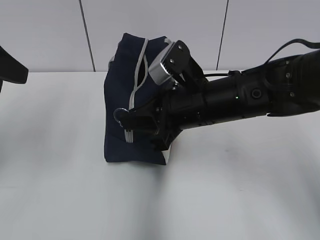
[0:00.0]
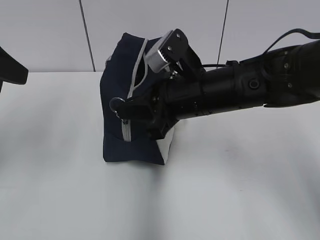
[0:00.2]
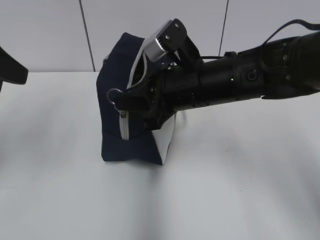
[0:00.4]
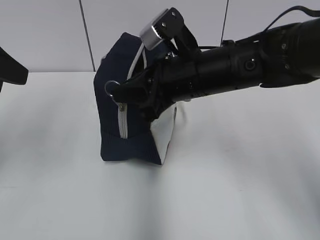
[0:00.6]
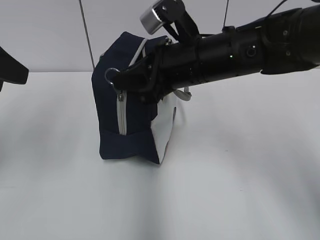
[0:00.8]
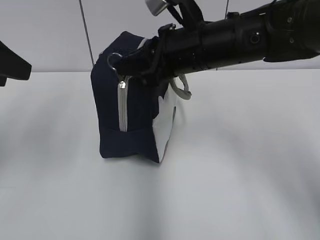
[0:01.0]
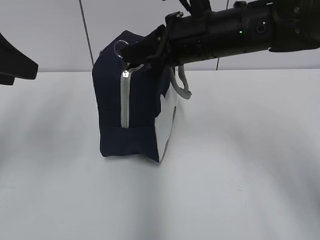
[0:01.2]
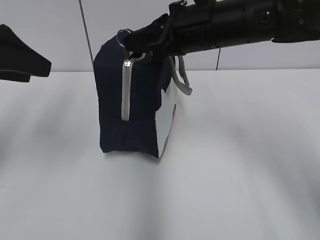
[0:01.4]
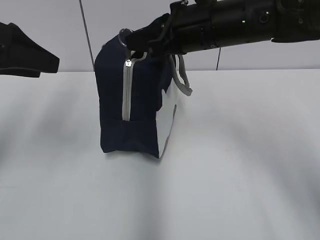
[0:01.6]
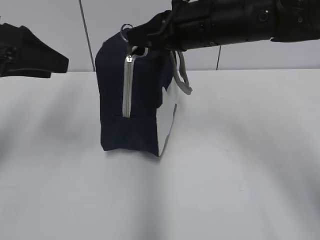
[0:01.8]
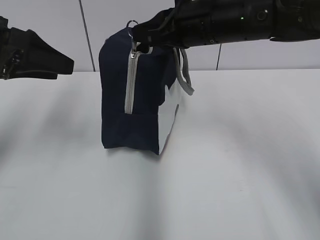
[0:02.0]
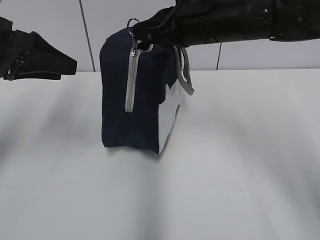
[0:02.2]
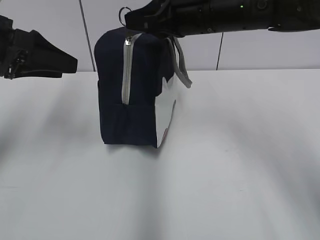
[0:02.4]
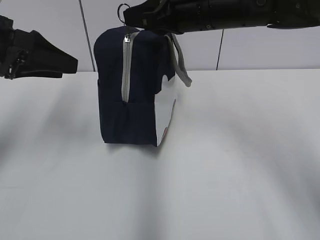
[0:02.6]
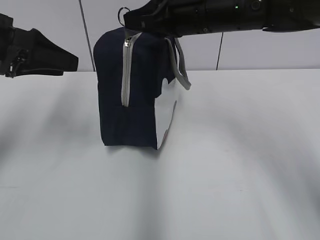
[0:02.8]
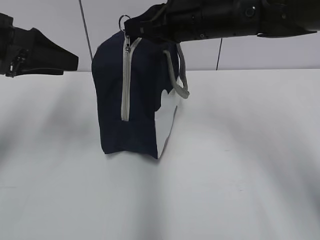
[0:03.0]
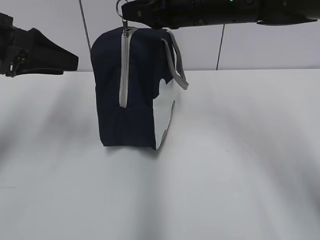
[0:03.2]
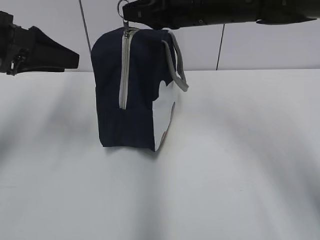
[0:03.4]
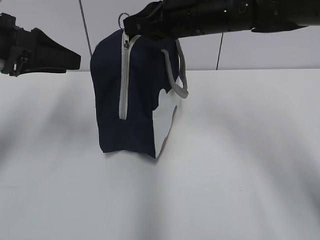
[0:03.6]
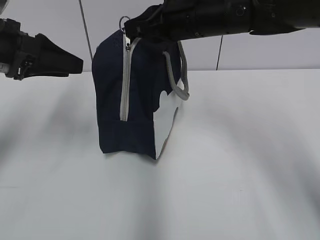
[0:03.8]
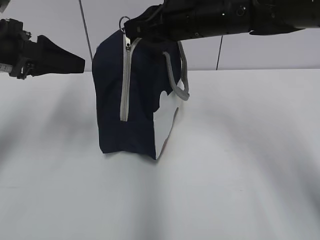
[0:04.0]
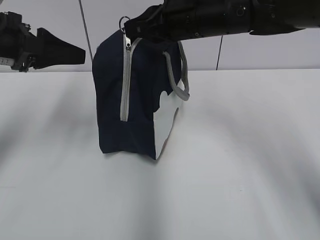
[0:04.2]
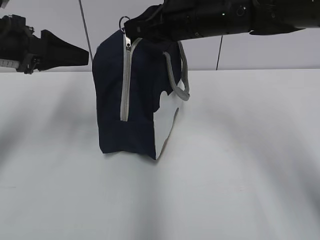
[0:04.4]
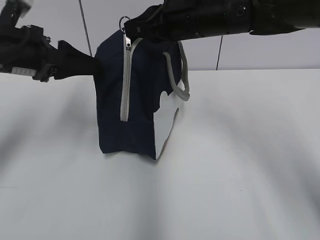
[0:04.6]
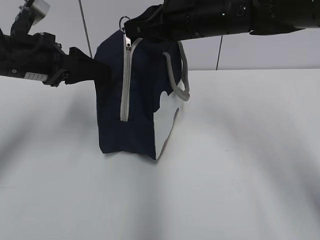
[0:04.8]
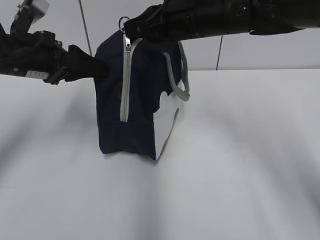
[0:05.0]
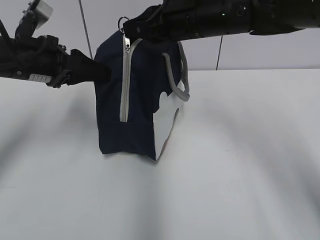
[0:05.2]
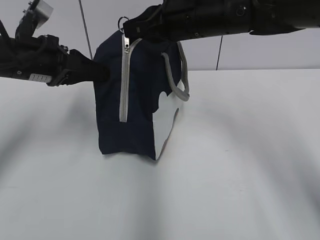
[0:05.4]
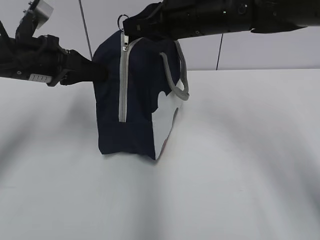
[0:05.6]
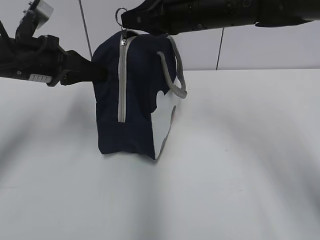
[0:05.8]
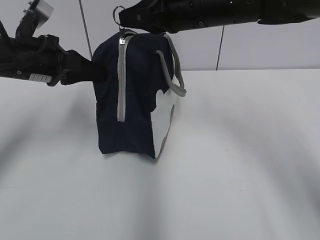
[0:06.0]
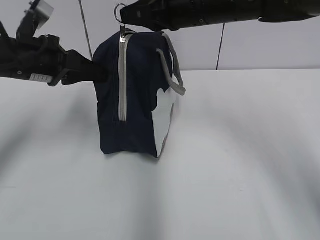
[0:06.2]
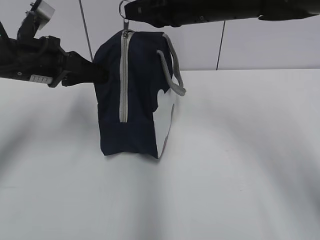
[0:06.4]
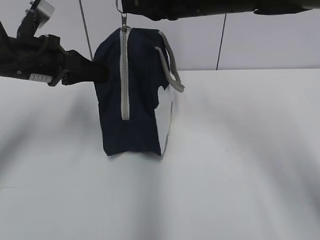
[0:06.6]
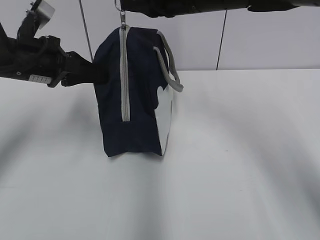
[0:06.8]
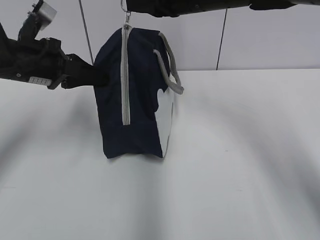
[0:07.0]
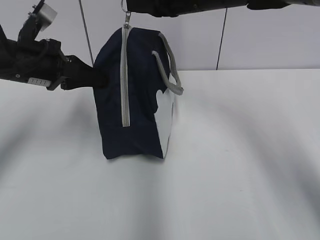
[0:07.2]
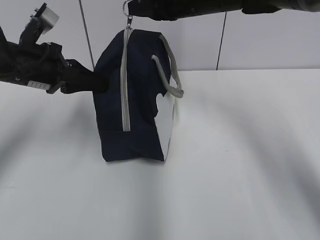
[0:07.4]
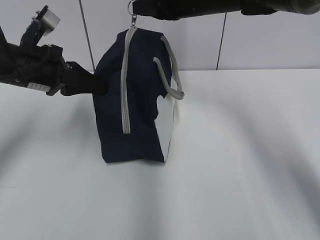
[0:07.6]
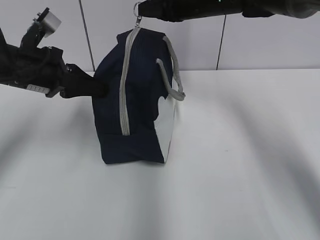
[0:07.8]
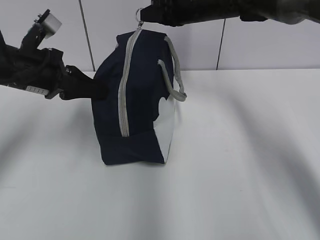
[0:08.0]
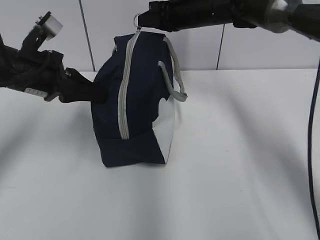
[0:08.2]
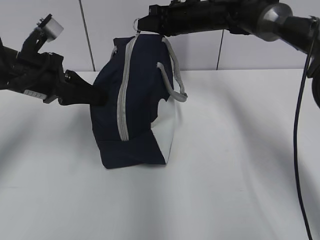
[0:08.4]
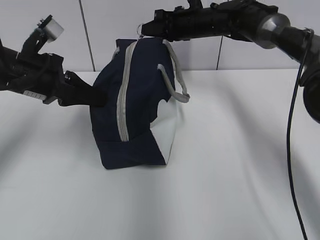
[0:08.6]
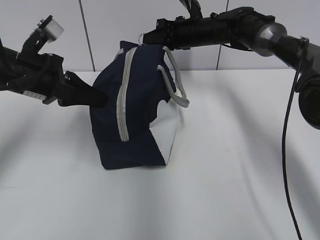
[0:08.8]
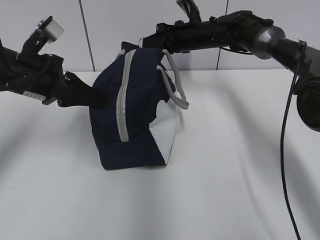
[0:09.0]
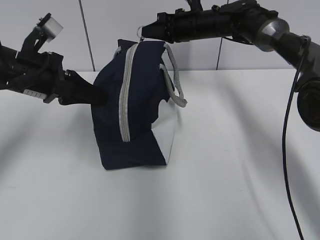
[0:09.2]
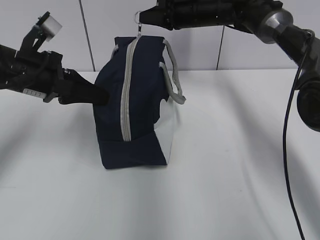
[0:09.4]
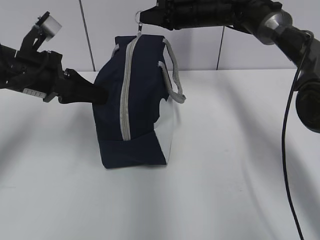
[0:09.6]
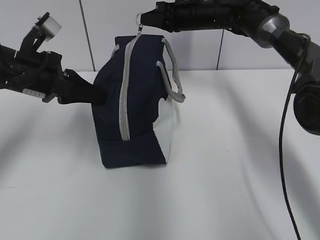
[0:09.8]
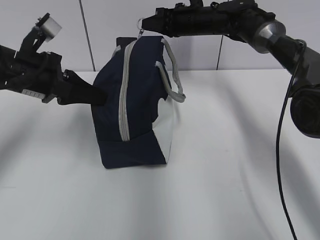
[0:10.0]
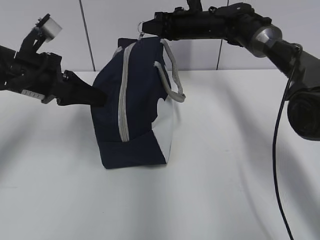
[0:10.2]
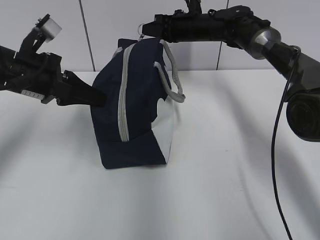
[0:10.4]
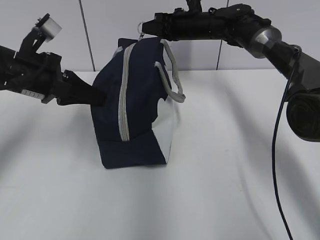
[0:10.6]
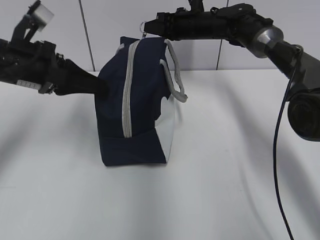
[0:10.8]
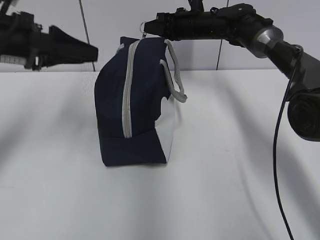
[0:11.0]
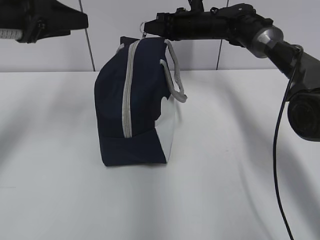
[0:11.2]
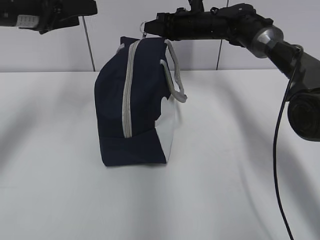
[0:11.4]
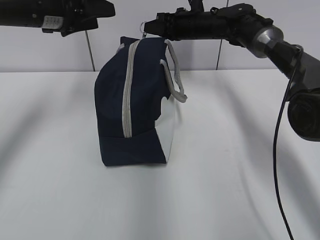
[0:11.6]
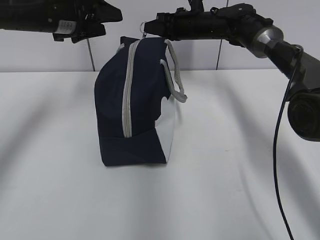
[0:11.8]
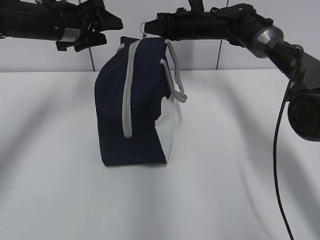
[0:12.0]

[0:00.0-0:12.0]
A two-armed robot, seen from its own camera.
0:00.0 to 0:01.6: The right gripper heads upward and forward, covering some 10 cm.
0:01.6 to 0:03.0: The grippers move only a little.
0:03.0 to 0:04.4: The grippers move only a little.
0:04.4 to 0:06.0: The left gripper closes its fingers.
0:06.0 to 0:07.6: The right gripper goes approximately 10 cm forward.
0:07.6 to 0:09.0: The right gripper heads downward and forward, covering about 15 cm.
0:09.0 to 0:10.4: There are only small adjustments of the grippers.
0:10.4 to 0:12.0: The left gripper travels forward by roughly 10 cm, and opens its fingers.

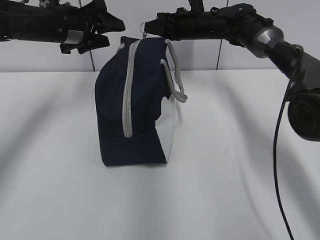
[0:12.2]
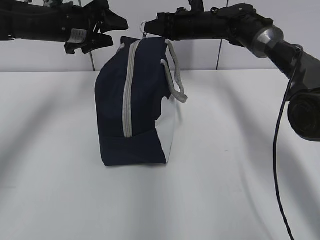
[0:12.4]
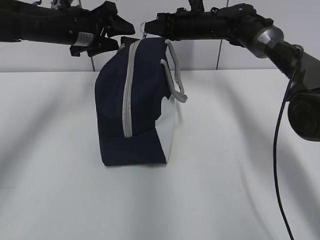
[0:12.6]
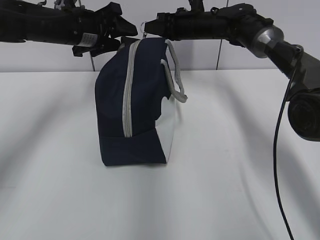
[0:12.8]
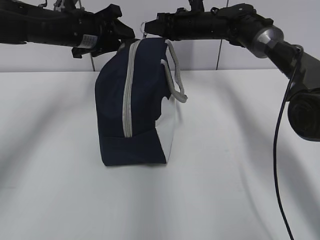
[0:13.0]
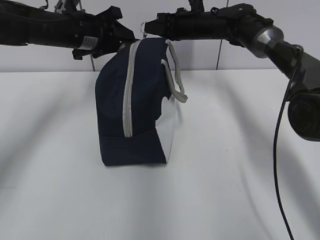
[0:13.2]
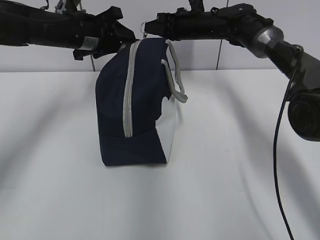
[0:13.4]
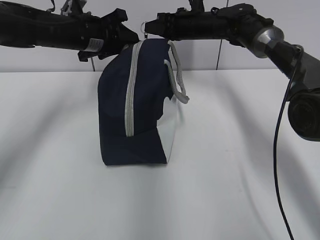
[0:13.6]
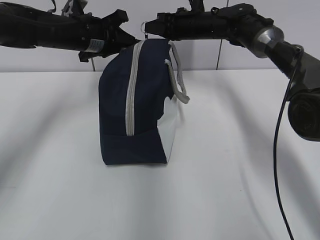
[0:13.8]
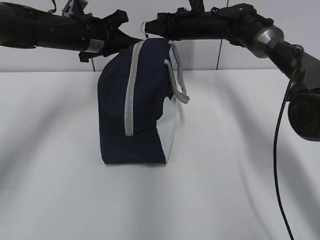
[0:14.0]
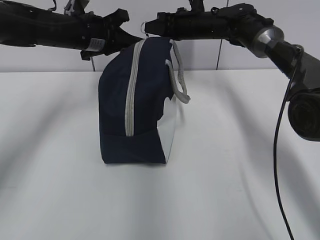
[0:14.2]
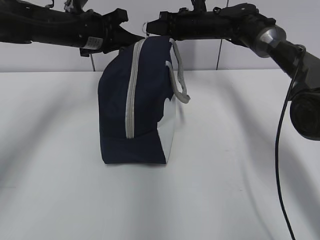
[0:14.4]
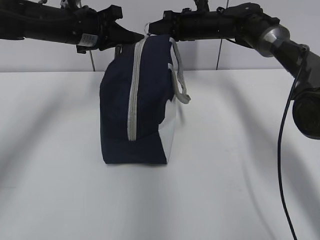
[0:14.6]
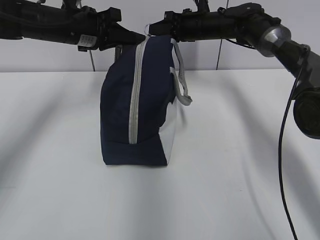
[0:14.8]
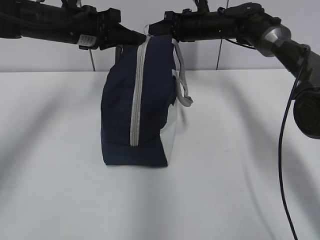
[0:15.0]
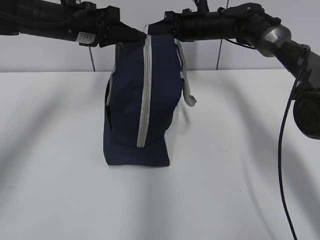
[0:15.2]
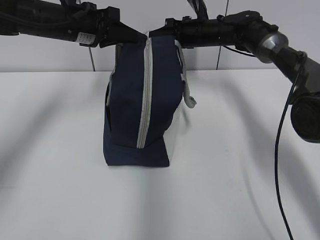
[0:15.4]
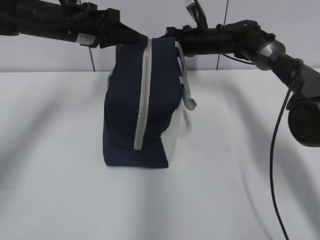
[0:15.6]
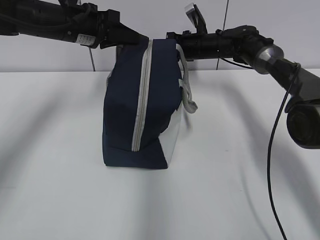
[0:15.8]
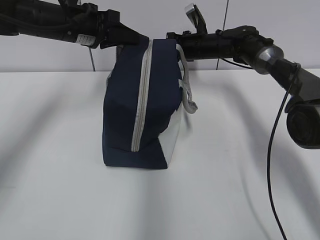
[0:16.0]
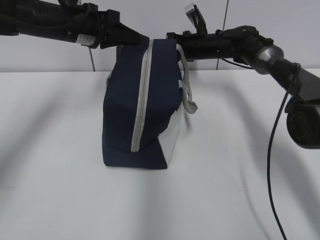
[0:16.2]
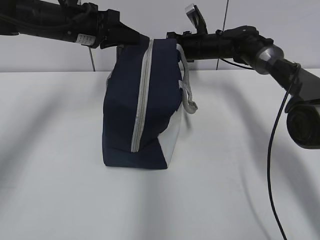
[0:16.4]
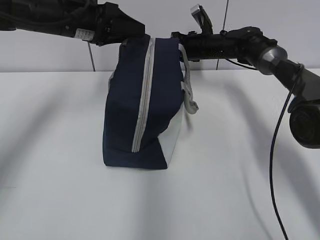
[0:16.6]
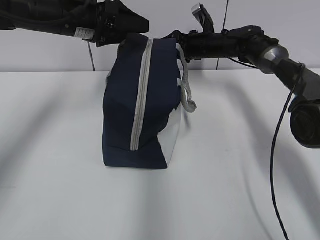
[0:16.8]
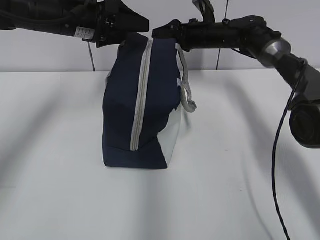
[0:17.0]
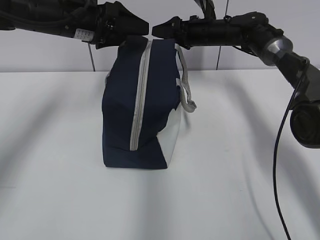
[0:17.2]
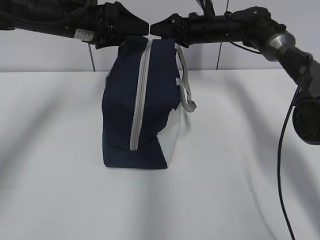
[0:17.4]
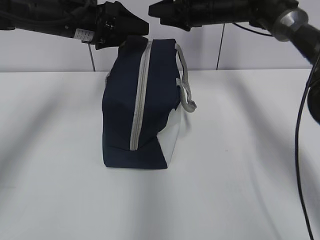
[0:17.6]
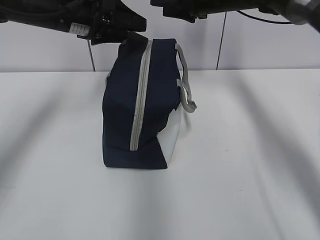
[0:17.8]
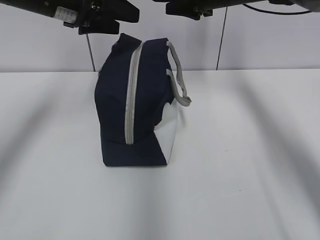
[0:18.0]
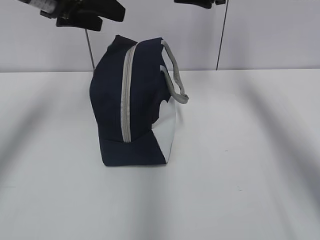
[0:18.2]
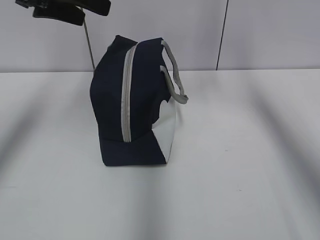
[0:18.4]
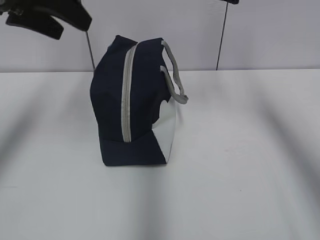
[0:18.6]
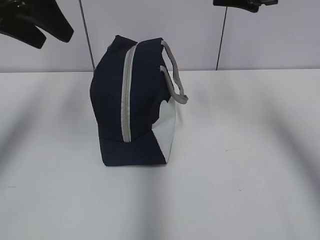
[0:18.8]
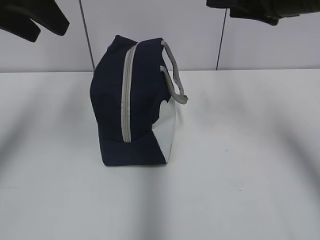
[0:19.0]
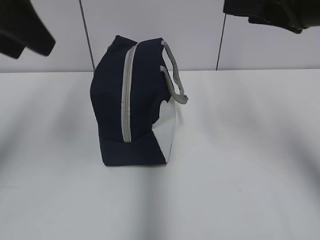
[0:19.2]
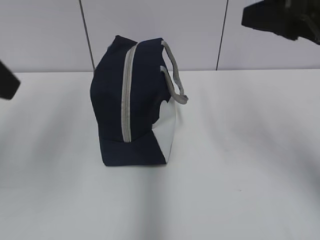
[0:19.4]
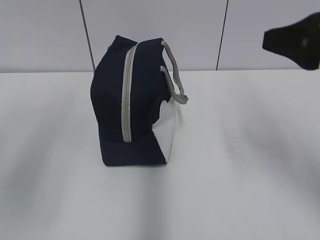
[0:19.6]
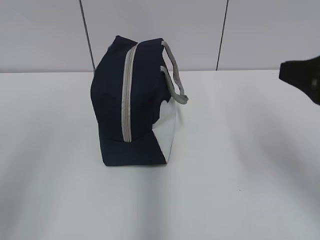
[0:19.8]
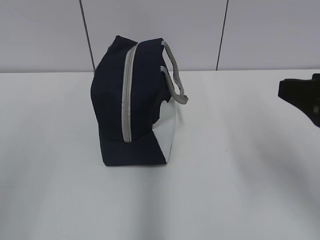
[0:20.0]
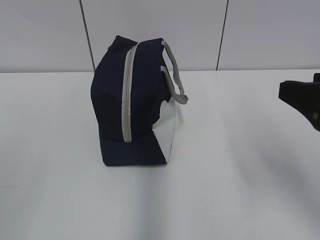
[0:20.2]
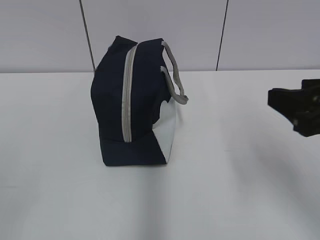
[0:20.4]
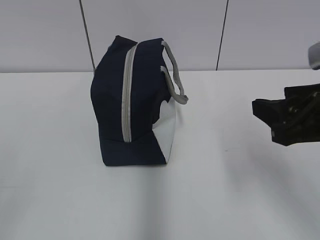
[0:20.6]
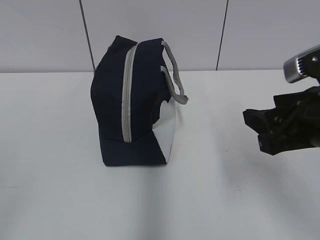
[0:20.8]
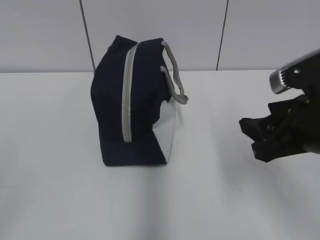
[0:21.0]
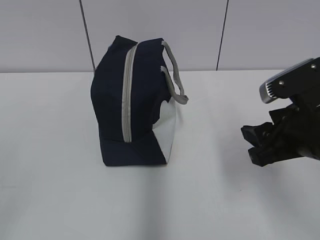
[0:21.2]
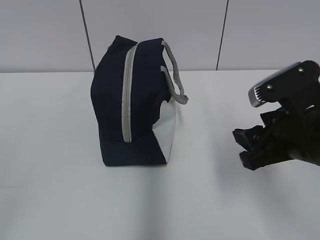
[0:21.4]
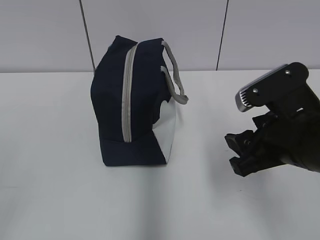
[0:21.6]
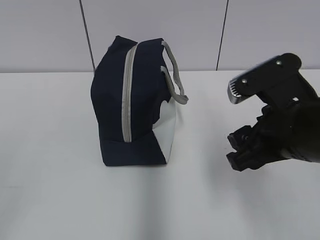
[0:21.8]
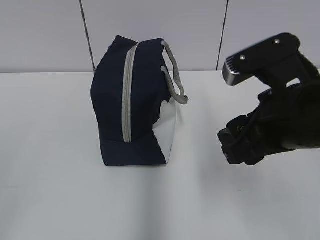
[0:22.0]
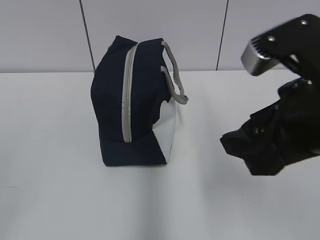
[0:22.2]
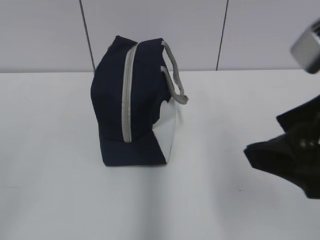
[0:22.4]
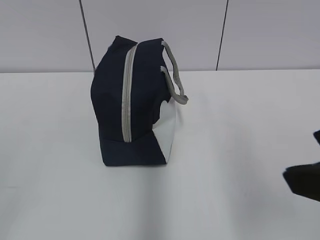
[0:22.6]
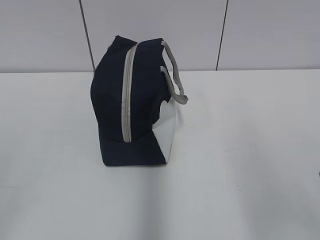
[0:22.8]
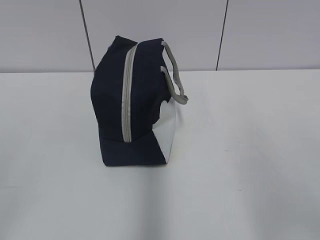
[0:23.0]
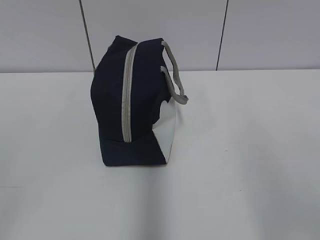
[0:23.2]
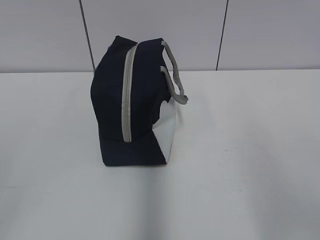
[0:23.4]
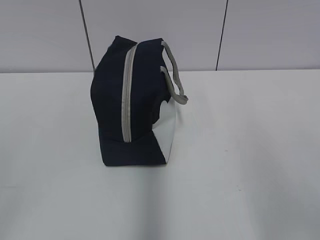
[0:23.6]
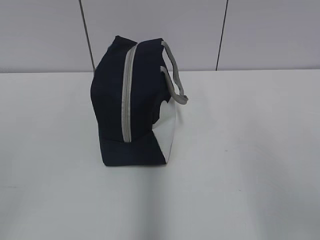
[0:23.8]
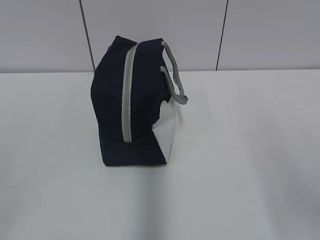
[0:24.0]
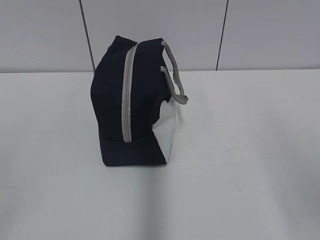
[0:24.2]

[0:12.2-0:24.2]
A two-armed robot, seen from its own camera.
0:12.2 to 0:13.8: The left gripper closes its fingers.
0:15.2 to 0:16.6: The left gripper opens its fingers. Meanwhile the right gripper shifts approximately 5 cm downward, and opens up.
0:16.6 to 0:18.2: The left gripper shifts roughly 10 cm upward and backward; the right gripper shifts approximately 20 cm upward and backward, and opens its fingers.
0:18.2 to 0:19.8: Both grippers travel together backward, about 30 cm.
0:19.8 to 0:21.2: The right gripper travels downward by roughly 10 cm.
0:21.2 to 0:22.6: The right gripper shifts approximately 15 cm backward and upward.
0:22.6 to 0:24.2: The right gripper is displaced to the right by roughly 5 cm.
